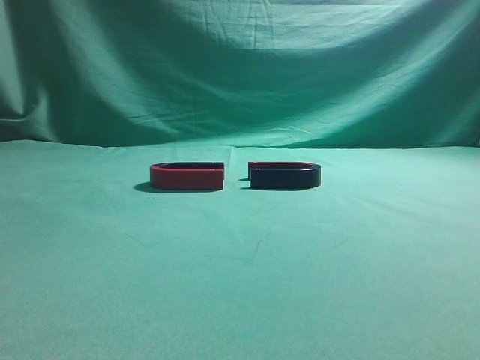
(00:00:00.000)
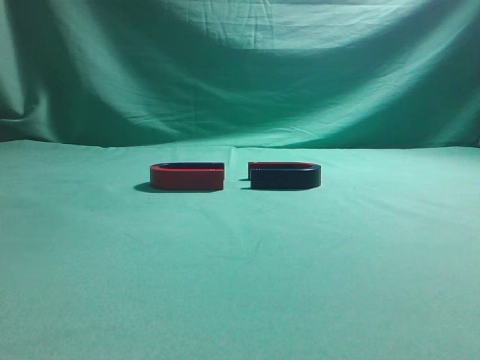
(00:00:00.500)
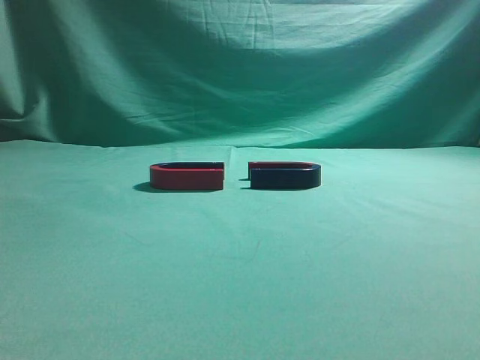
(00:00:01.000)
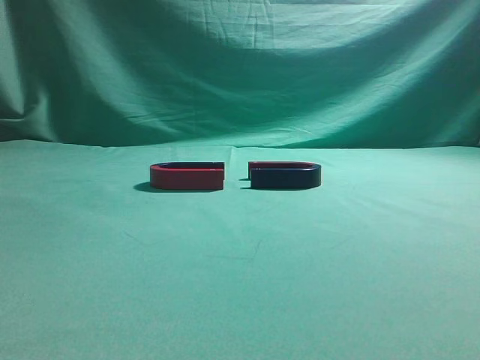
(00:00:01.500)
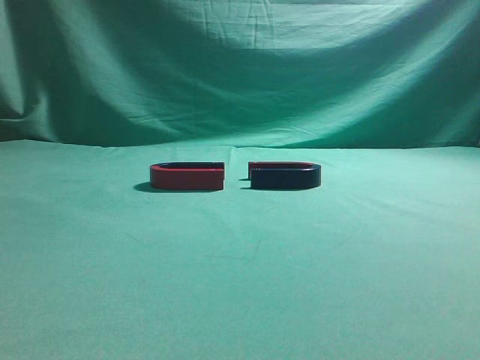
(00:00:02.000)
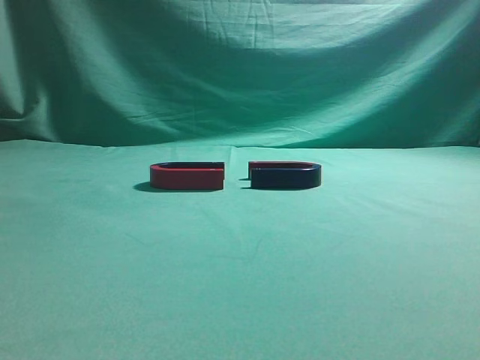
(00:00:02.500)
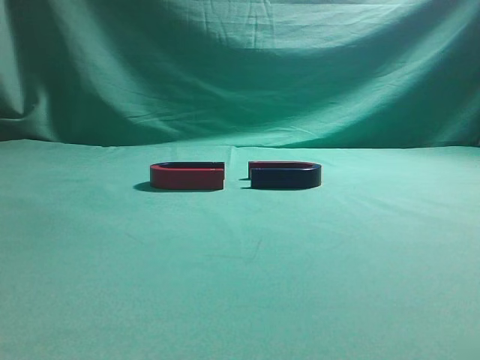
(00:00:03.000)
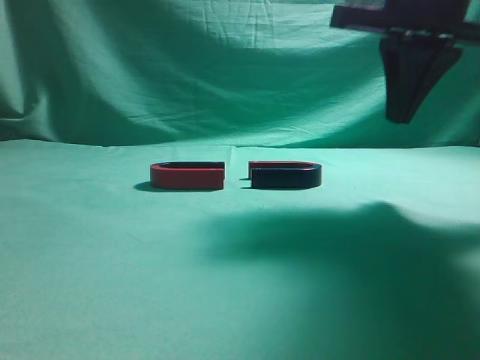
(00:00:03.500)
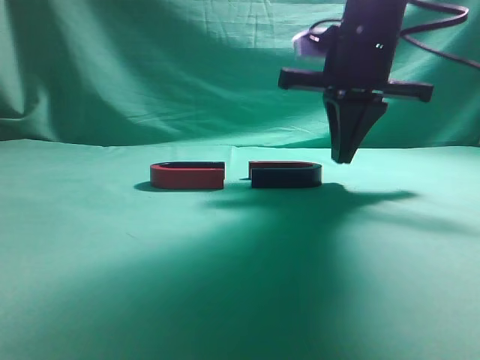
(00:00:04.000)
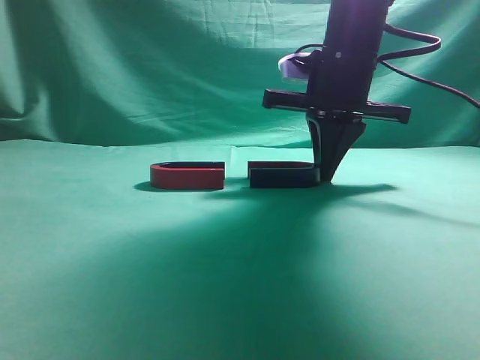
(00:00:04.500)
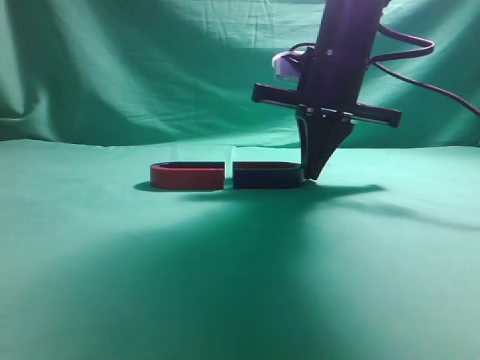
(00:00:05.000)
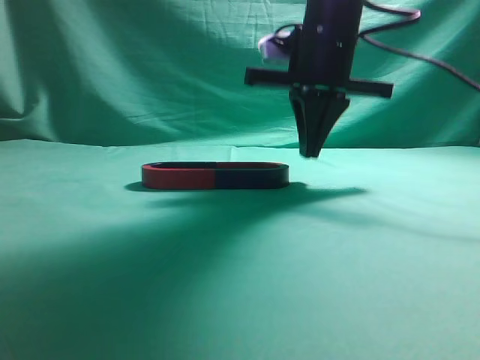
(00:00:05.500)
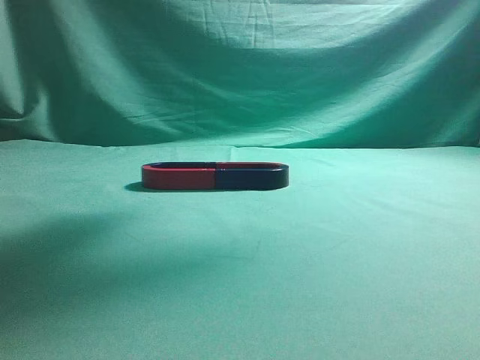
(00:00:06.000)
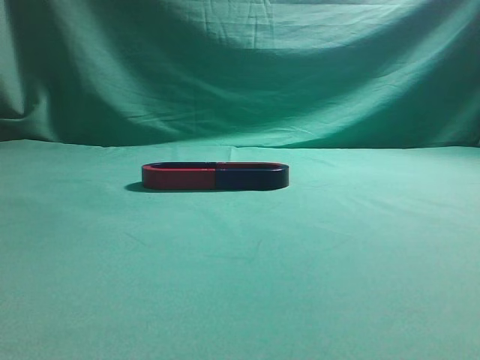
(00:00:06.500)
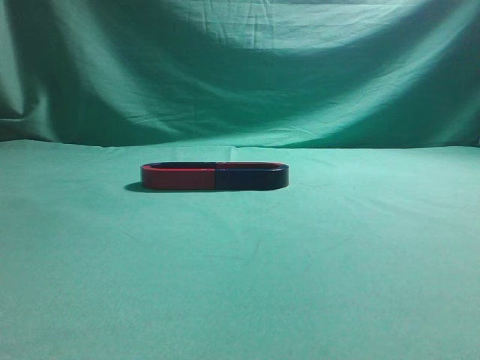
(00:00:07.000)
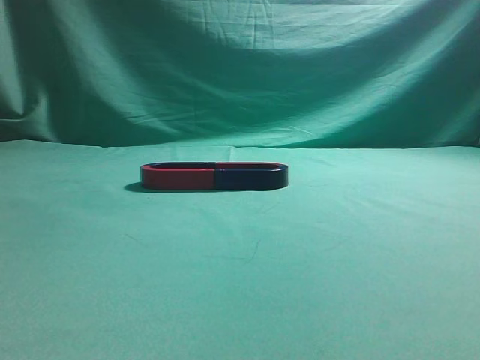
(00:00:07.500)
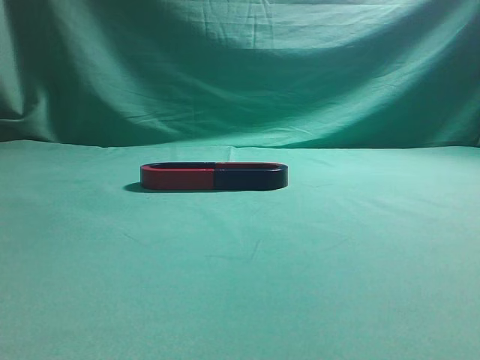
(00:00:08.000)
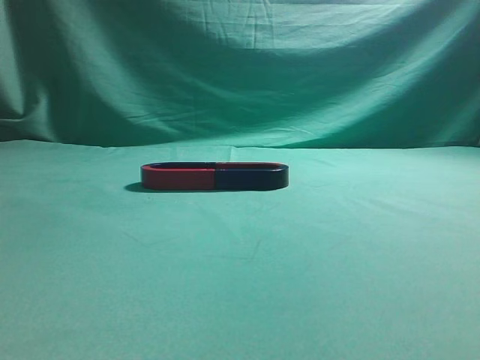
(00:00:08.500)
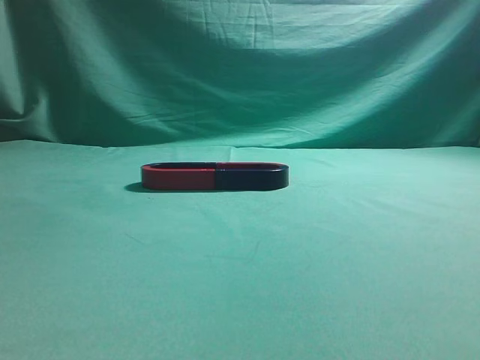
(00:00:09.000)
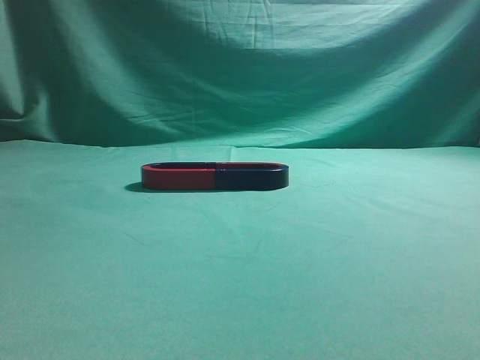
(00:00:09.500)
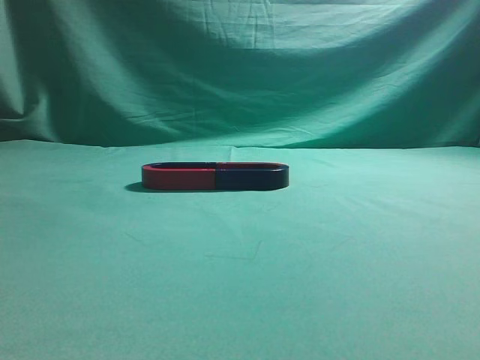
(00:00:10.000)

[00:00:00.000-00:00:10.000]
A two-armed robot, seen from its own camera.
Task of the whole recording: push the magnet on the table from its original position to another position.
Step, 00:00:00.000 to 00:00:05.000: Push the magnet on the right to connect the magnet on the left.
00:00:02.000 to 00:00:04.000: The right gripper shifts approximately 35 cm forward and to the left.
00:00:04.000 to 00:00:06.000: The right gripper is displaced upward by approximately 15 cm.
00:00:06.000 to 00:00:08.000: The right gripper goes about 40 cm backward and to the right.
